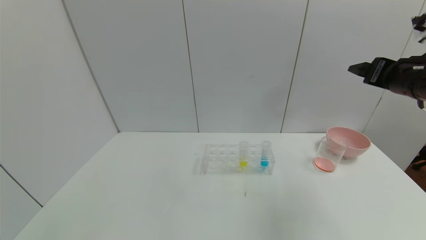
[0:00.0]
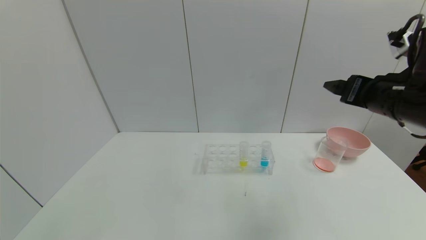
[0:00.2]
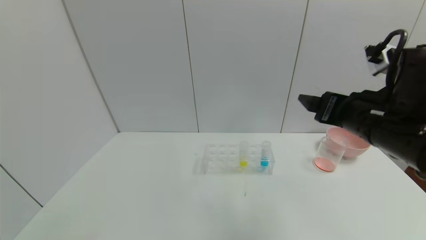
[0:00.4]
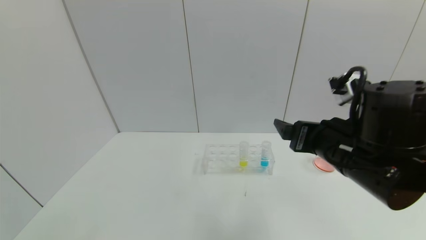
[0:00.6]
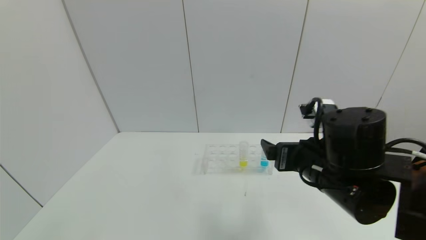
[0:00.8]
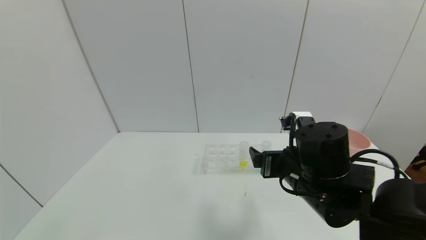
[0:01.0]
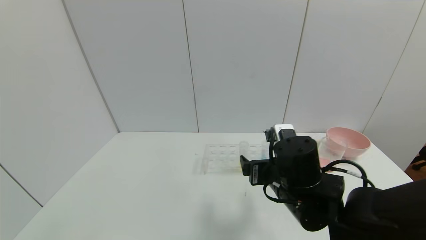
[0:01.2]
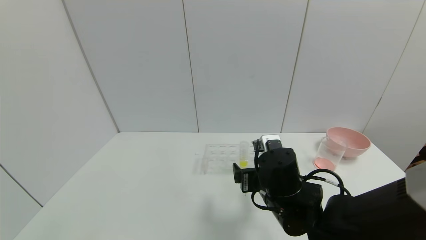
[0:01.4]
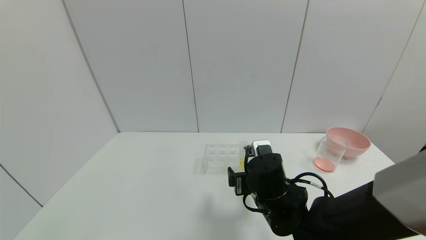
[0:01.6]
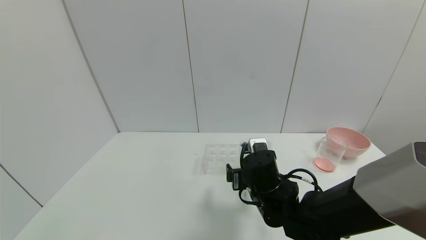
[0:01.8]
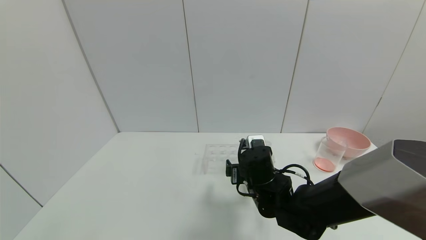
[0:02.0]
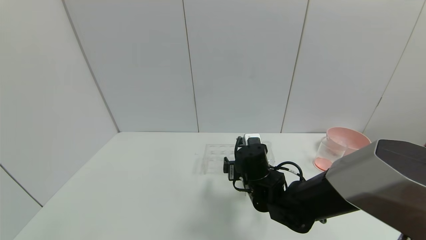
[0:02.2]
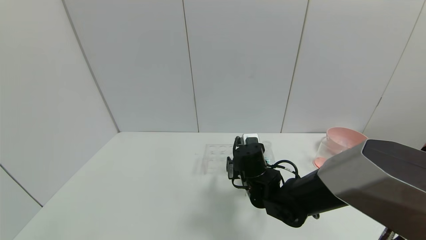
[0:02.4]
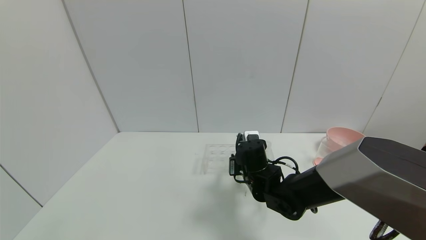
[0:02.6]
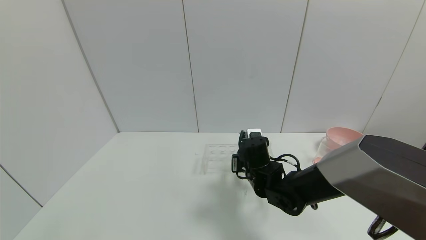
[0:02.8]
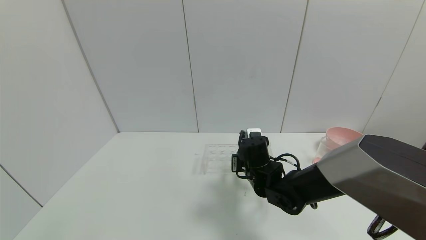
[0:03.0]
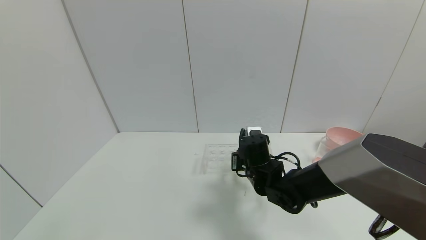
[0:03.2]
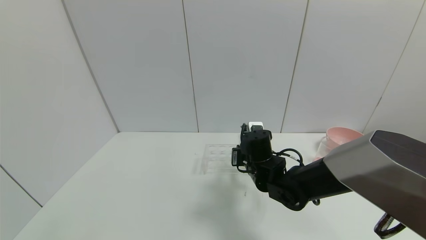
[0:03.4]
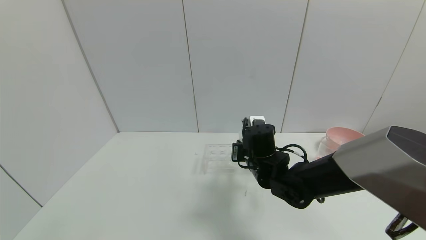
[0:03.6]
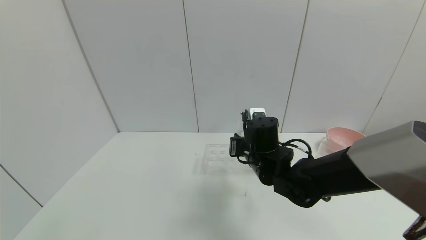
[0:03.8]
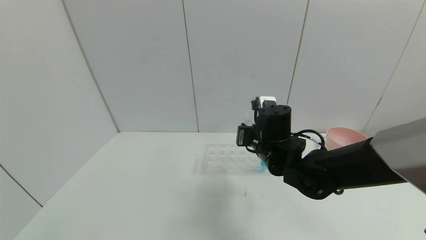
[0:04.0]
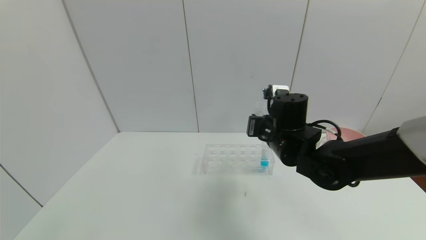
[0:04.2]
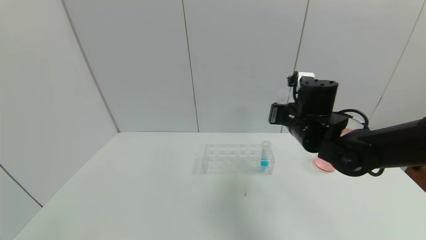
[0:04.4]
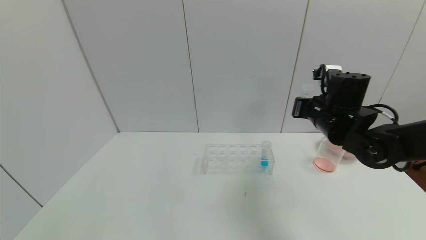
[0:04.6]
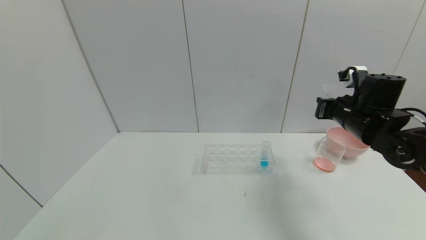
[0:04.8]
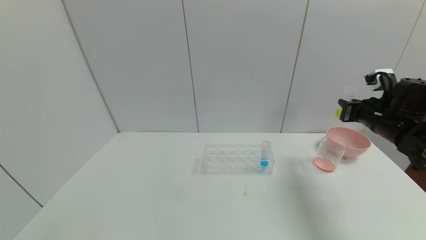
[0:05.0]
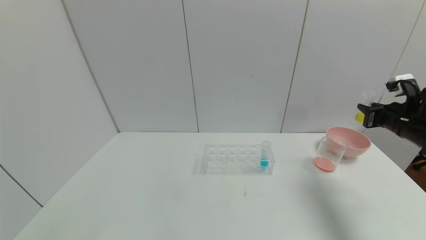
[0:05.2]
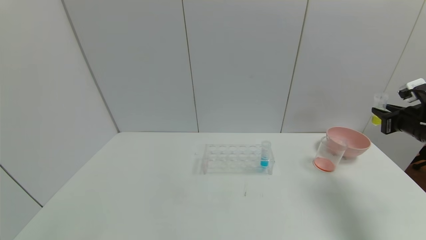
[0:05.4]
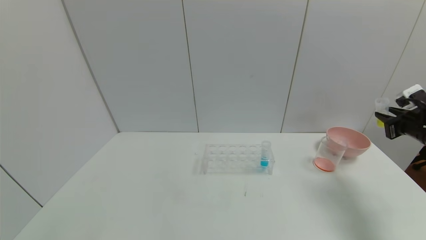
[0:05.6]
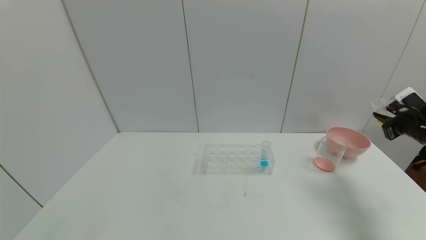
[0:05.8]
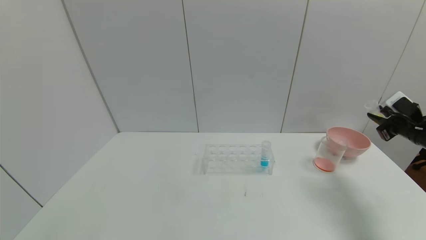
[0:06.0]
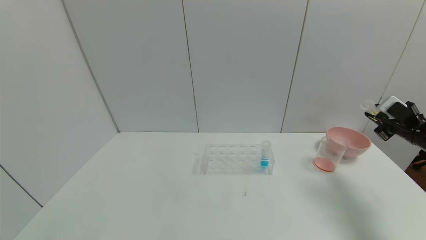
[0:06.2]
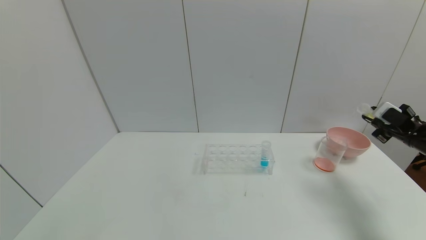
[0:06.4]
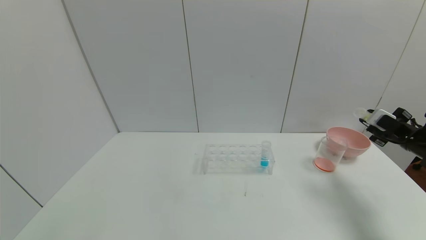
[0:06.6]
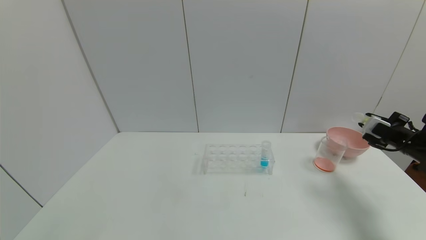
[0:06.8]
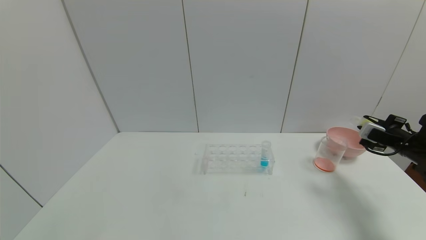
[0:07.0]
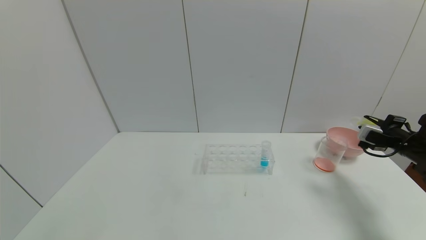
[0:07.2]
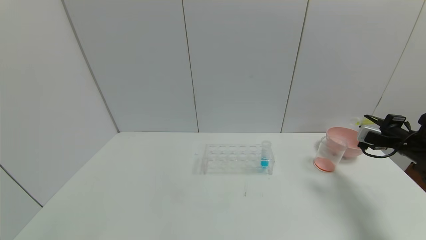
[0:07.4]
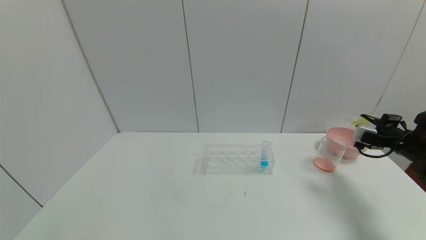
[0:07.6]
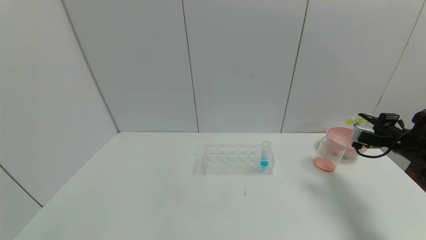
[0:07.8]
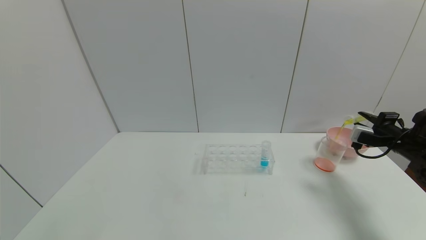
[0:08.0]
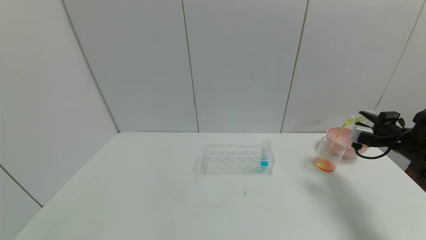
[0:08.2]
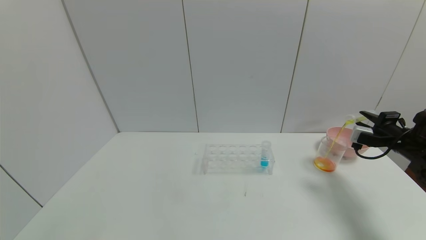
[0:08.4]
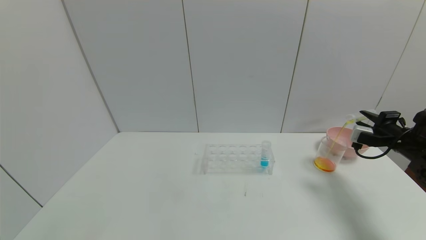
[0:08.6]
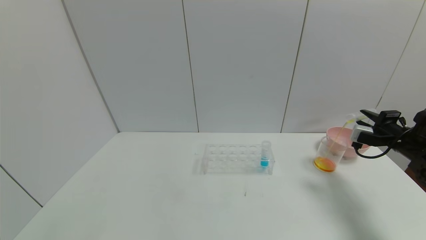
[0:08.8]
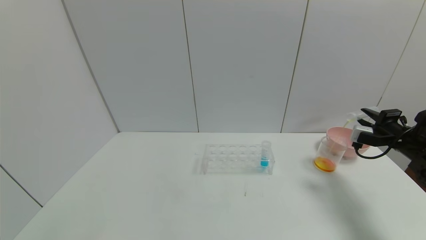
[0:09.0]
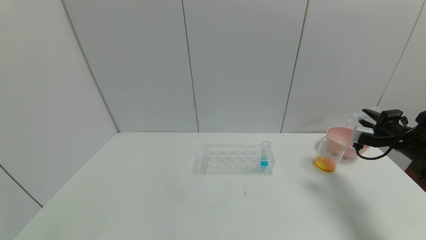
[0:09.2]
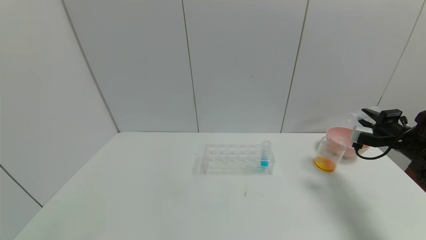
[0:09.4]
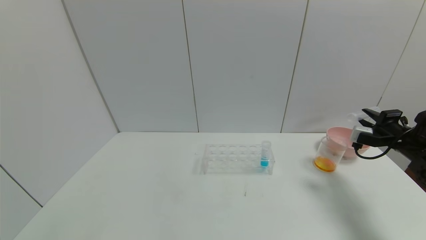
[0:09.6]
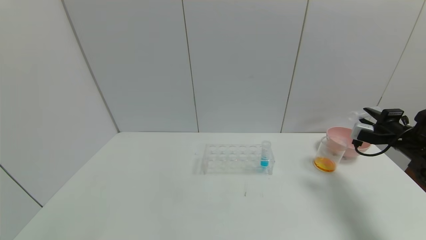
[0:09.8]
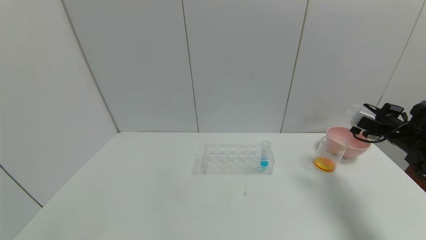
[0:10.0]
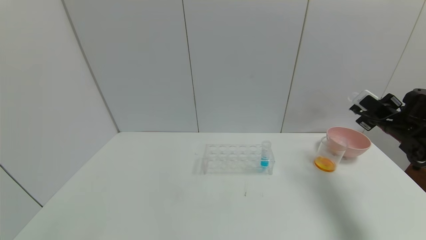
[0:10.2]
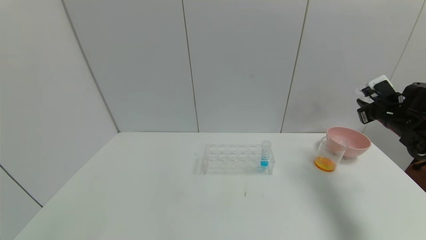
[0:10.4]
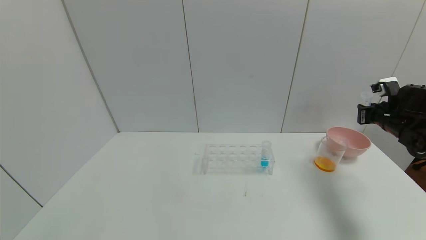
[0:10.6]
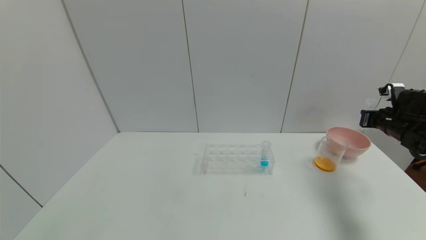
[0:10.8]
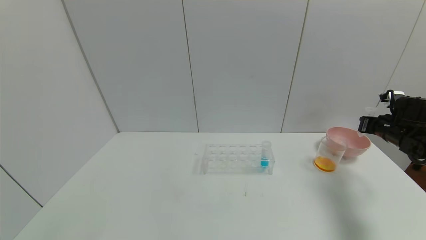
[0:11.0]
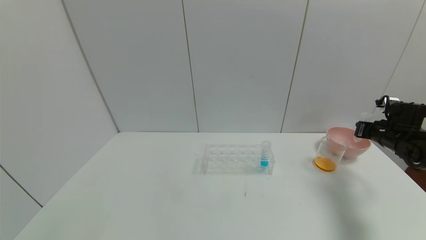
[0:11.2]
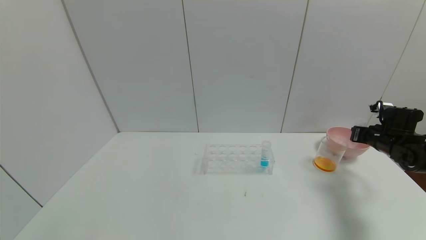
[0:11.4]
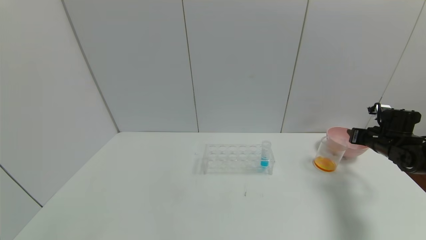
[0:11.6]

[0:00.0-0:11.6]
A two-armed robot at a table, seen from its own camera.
Task of the whole recording: pick up the test tube with yellow pigment and the test tube with red pigment by grippers and pour them into the beaker.
Step, 0:00.0 to 0:02.8: Grasp the yellow reagent with the right gripper.
Step, 0:03.0 to 0:09.8: Pour the yellow reagent into the graduated cylinder with the right gripper.
Step, 0:10.0 to 0:11.6: Place the test tube into the bowl with the right gripper.
0:00.0 to 0:01.4: The right gripper shifts about 30 cm to the left and downward.
0:01.4 to 0:02.8: The right gripper shifts roughly 10 cm forward, and closes.
0:02.8 to 0:04.4: The right gripper goes some 15 cm upward and to the right.
0:04.4 to 0:05.8: The right gripper shifts some 30 cm to the right.
0:05.8 to 0:07.2: The right gripper moves about 5 cm.
0:07.2 to 0:08.8: The grippers stay close to where they were, moving slightly.
0:08.8 to 0:10.2: The right gripper ends up some 5 cm from where it was.
0:10.2 to 0:11.6: The right gripper moves downward, some 5 cm, and opens up.

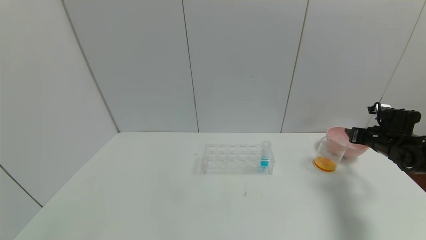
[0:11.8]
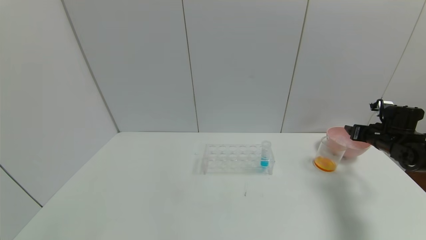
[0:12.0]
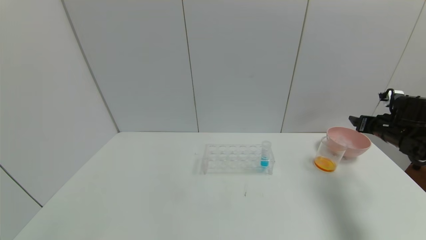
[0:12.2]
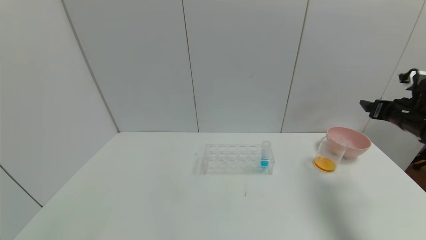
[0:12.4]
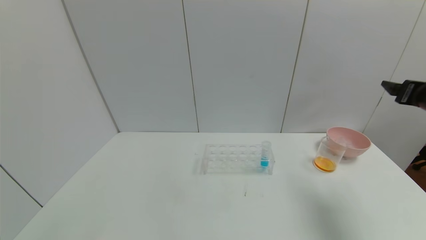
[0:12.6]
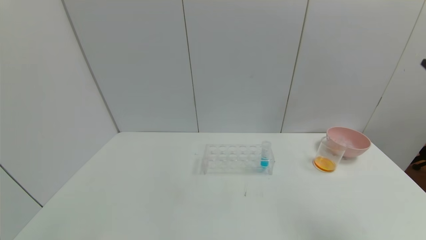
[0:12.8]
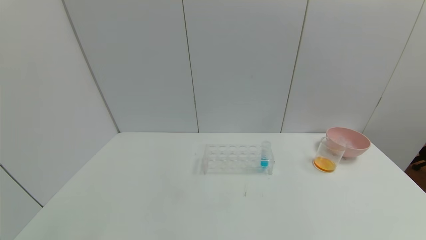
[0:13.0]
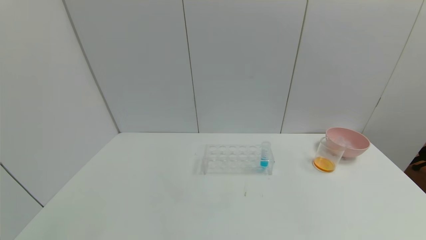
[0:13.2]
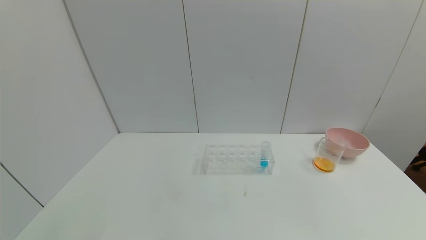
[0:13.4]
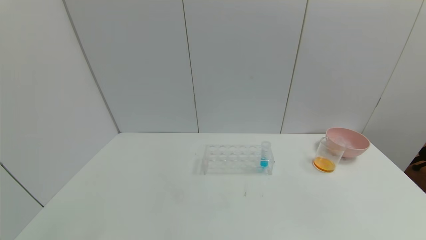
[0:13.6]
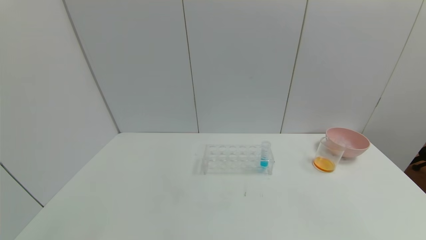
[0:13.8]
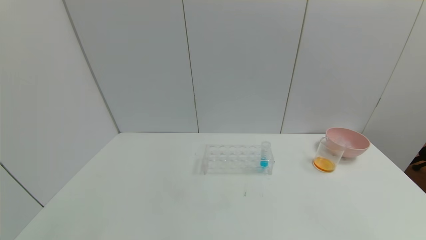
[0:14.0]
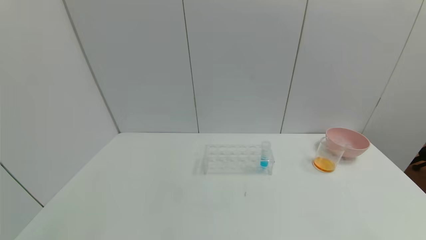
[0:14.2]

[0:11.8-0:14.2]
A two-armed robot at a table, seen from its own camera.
Task of the whole recording: pick up the test tube with yellow pigment and the test tube with red pigment by grippers and pour them into the beaker.
0:11.8 to 0:13.0: The right gripper heads backward and upward, covering some 35 cm, and opens its fingers.
